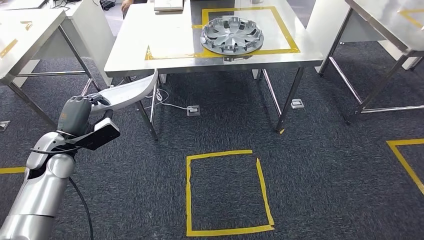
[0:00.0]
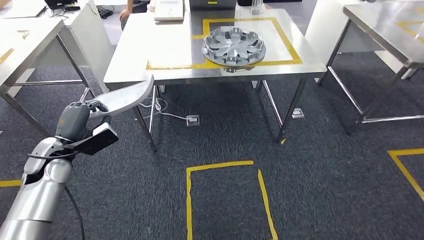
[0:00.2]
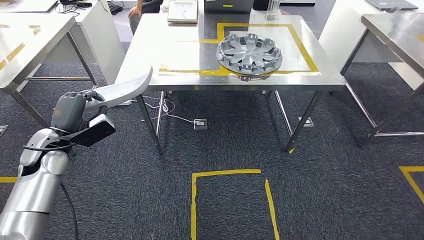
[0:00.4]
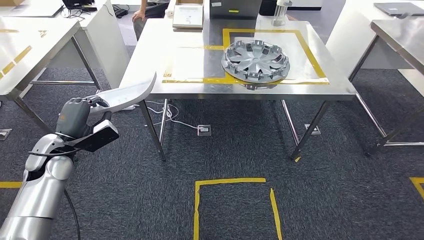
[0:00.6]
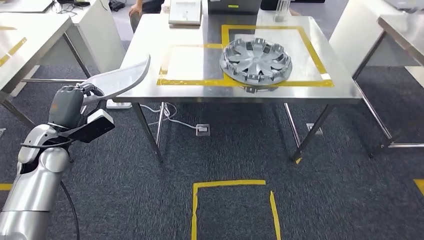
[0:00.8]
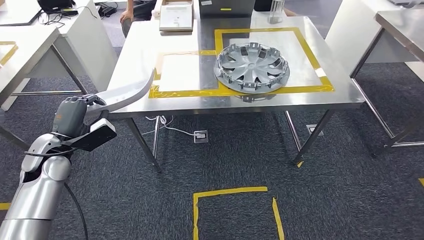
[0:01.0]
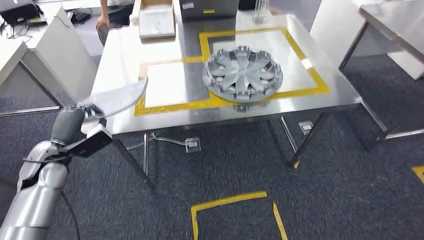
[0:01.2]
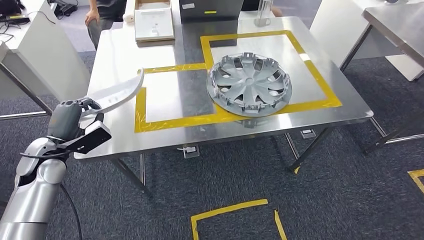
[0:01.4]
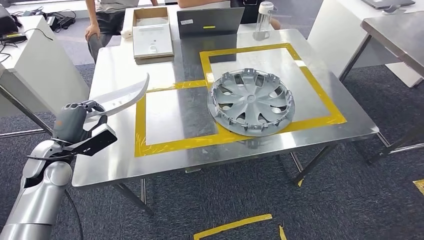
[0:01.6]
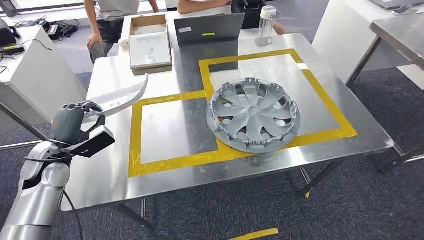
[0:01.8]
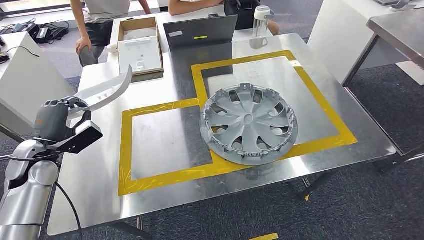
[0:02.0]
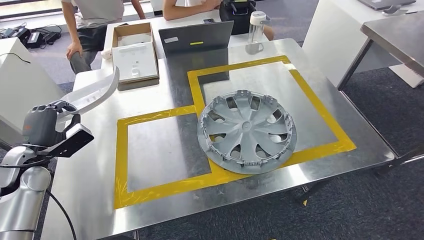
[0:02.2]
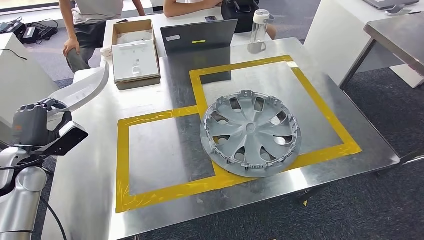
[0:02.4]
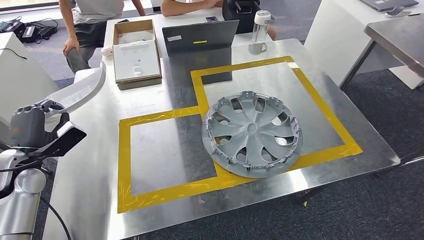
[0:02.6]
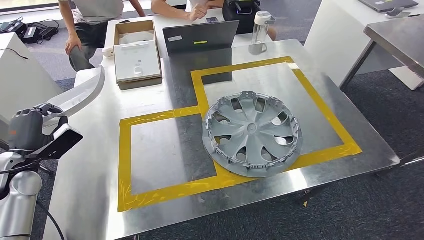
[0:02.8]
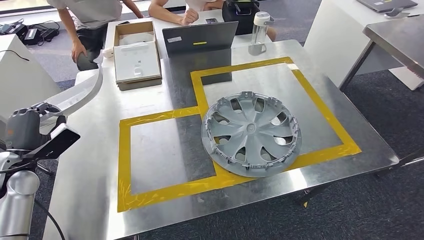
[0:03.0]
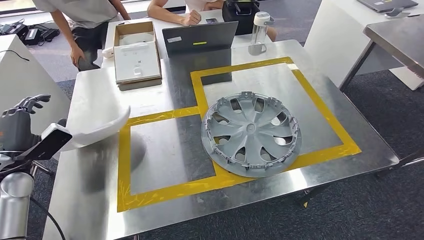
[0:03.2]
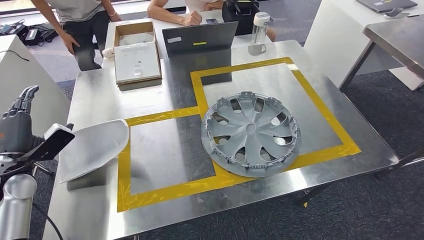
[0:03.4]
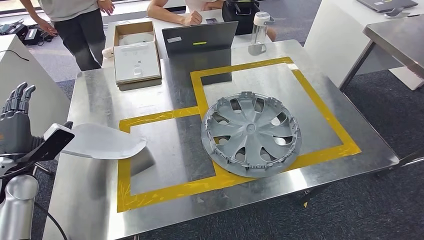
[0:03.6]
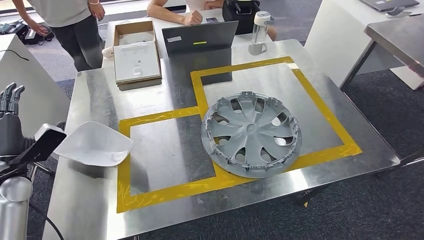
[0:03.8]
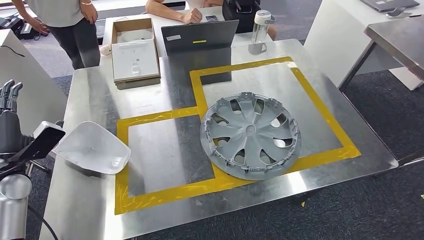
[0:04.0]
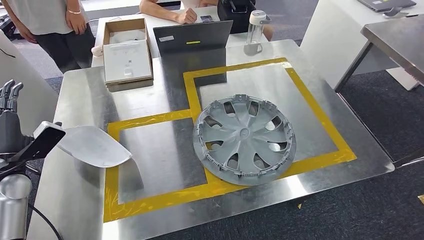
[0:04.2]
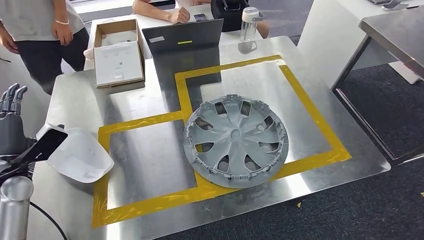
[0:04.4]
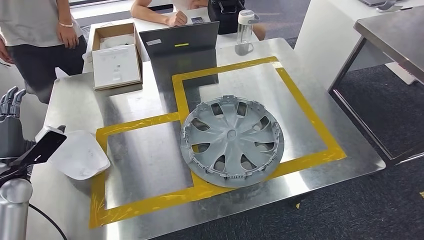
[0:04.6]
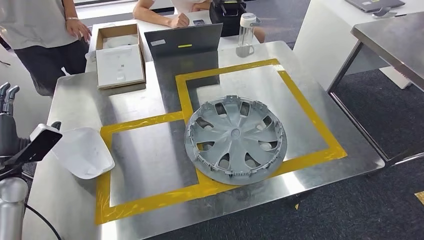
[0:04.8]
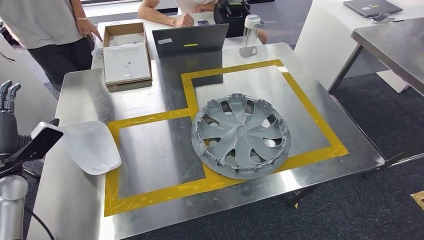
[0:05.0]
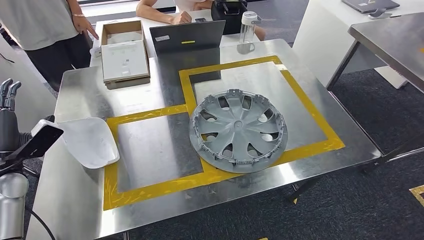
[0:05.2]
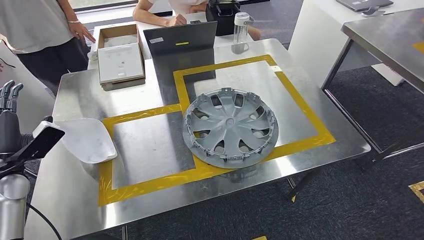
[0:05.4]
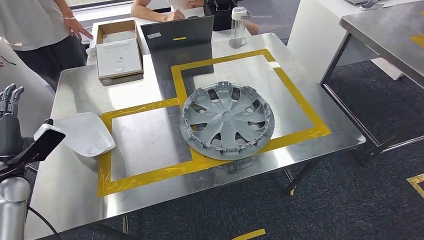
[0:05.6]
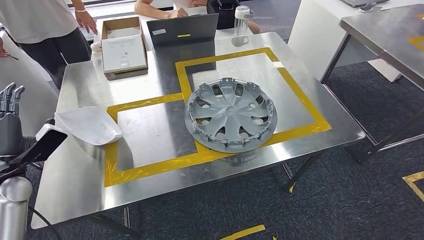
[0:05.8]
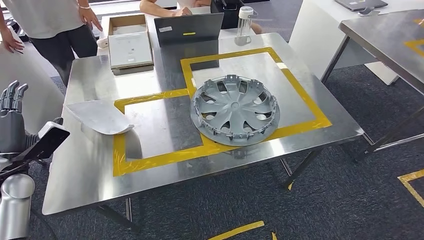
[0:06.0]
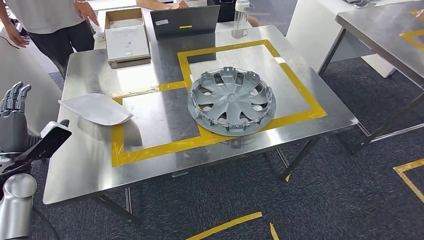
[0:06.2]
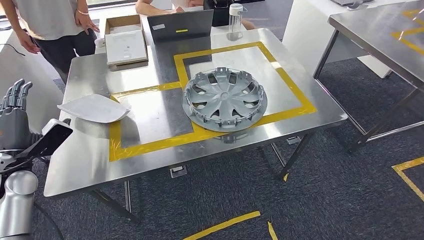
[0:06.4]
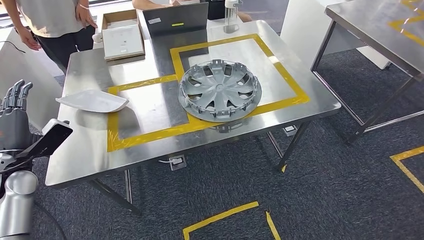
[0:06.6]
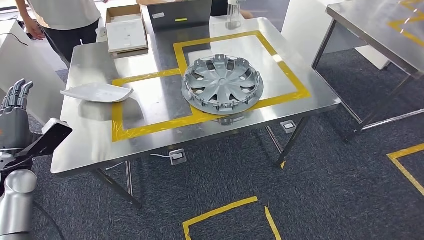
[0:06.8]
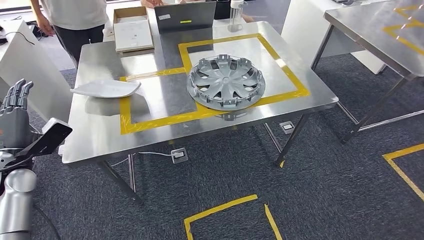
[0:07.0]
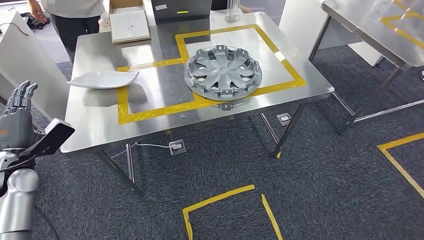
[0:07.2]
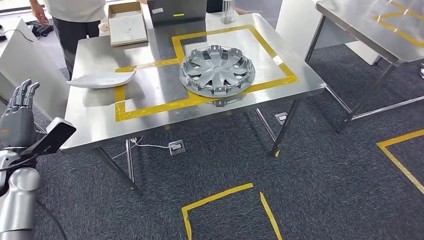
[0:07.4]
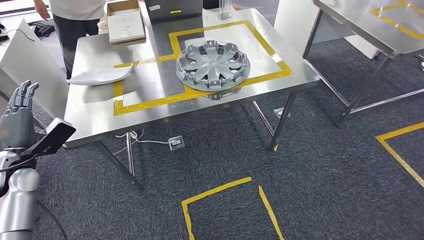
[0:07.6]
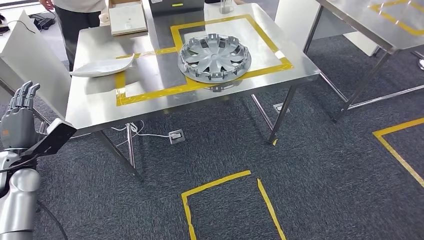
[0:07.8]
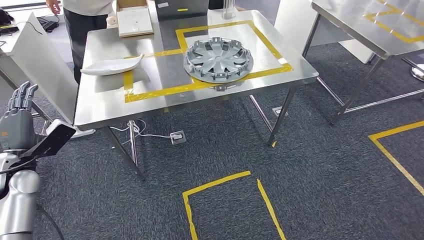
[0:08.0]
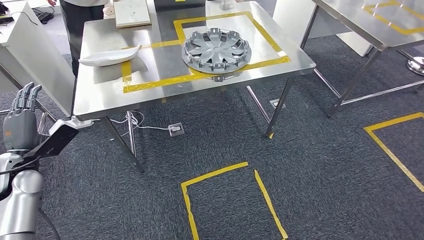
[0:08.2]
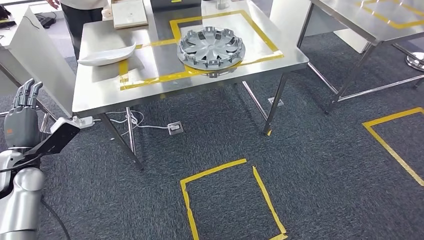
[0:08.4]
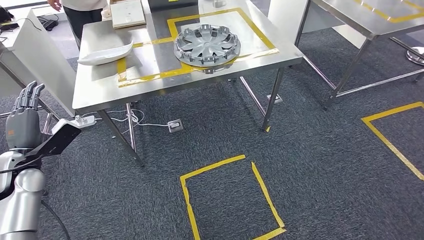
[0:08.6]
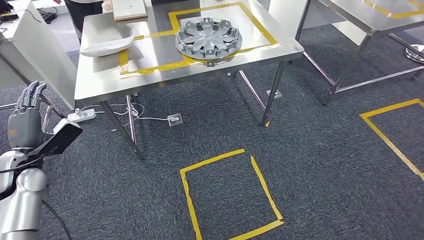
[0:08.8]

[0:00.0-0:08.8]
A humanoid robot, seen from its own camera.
Step, 0:00.0 to 0:02.8: Move the small component to the workbench.
Step, 0:03.2 to 0:05.2: Insert the small component into the corresponding slot on the workbench.
Step, 0:05.4 to 0:08.8: Move to the initial position at the workbench.
